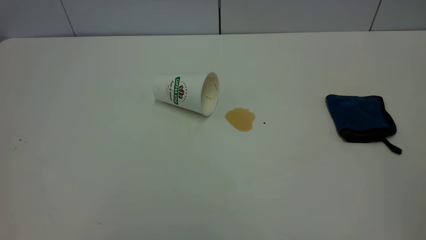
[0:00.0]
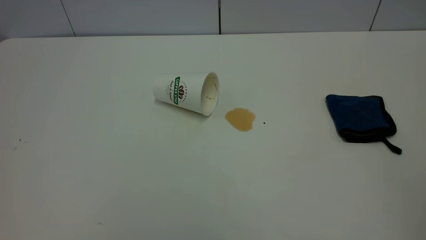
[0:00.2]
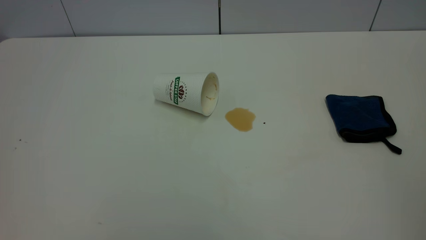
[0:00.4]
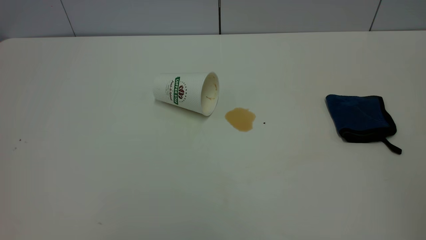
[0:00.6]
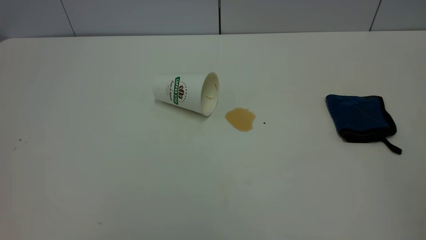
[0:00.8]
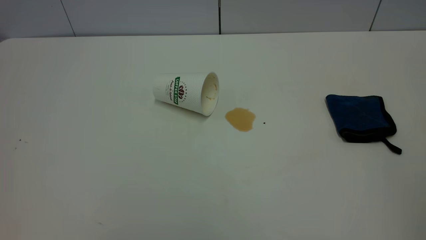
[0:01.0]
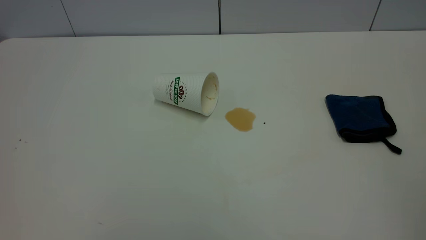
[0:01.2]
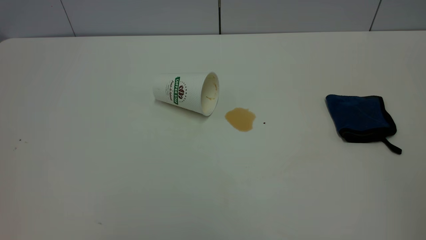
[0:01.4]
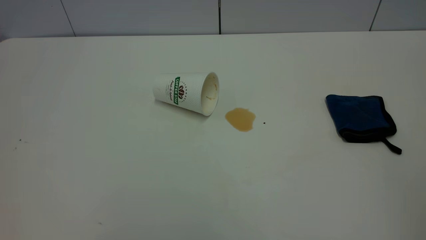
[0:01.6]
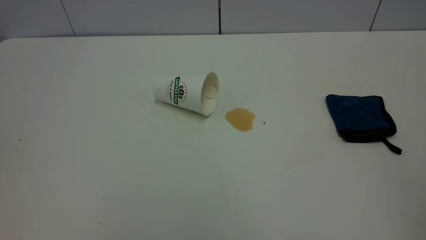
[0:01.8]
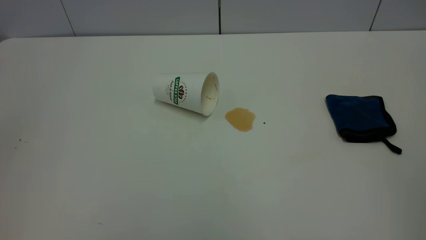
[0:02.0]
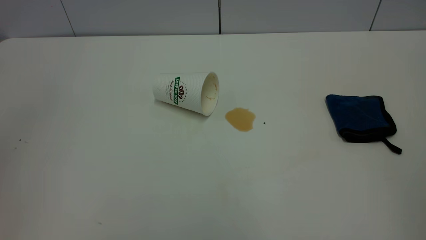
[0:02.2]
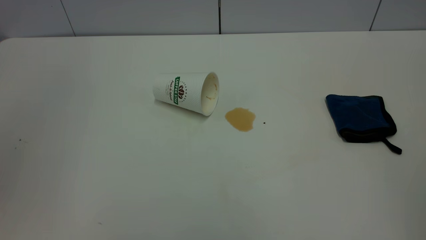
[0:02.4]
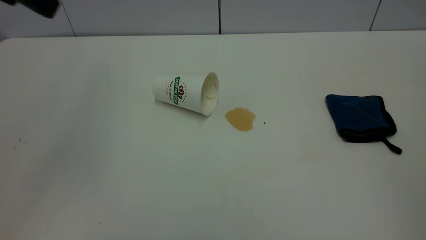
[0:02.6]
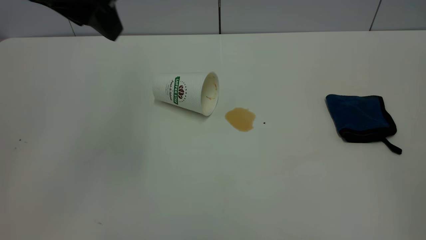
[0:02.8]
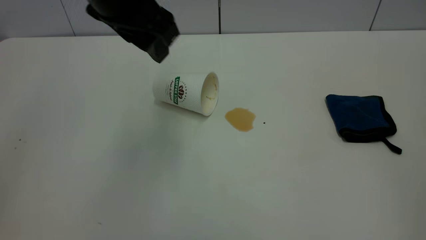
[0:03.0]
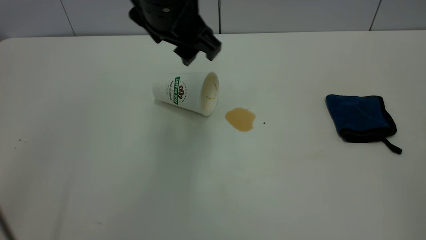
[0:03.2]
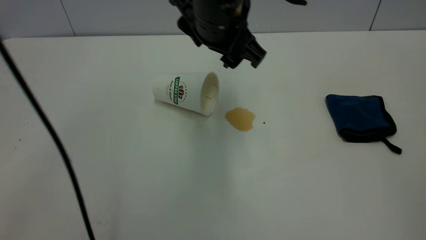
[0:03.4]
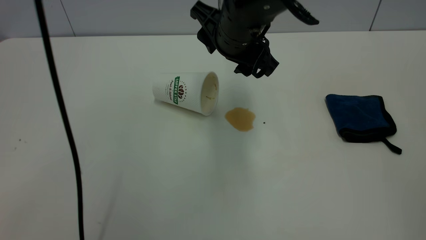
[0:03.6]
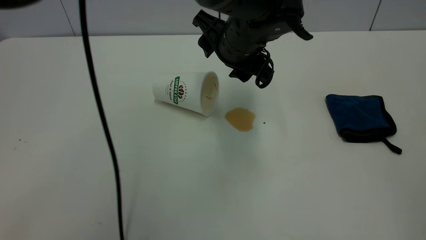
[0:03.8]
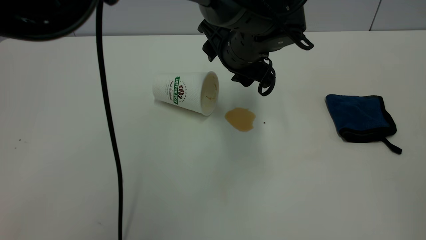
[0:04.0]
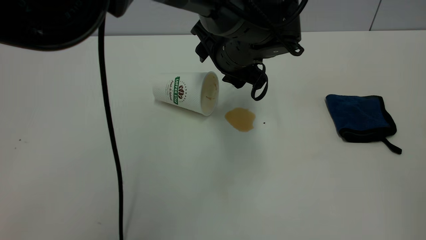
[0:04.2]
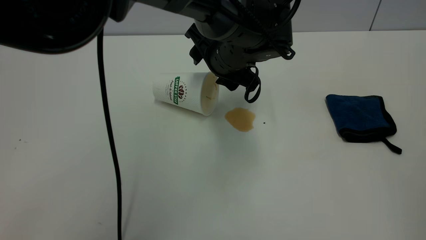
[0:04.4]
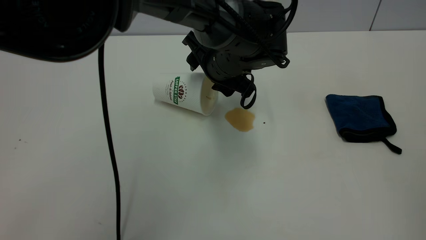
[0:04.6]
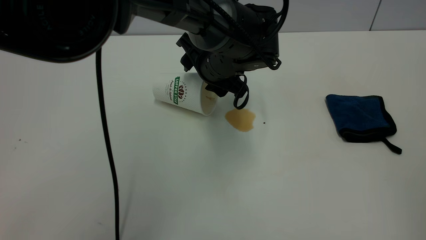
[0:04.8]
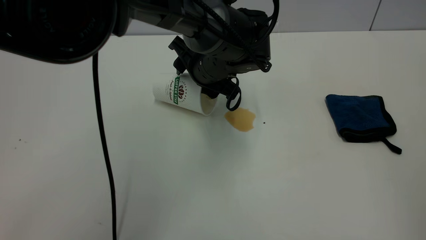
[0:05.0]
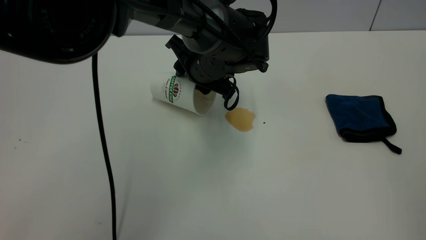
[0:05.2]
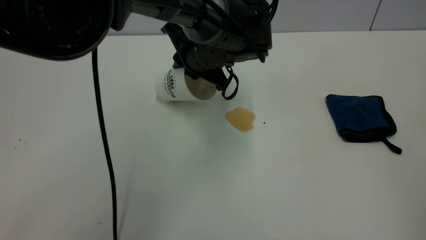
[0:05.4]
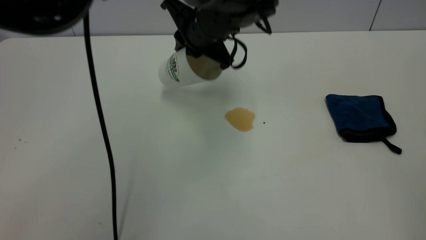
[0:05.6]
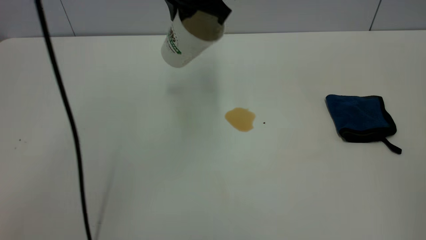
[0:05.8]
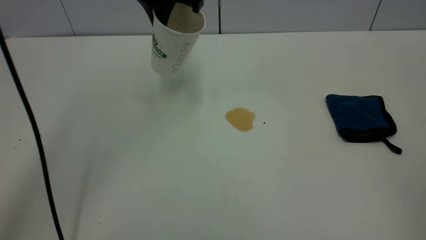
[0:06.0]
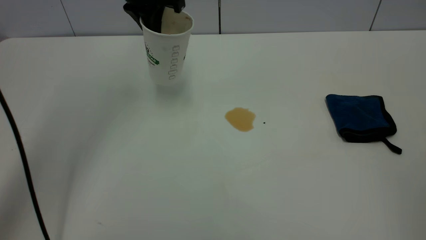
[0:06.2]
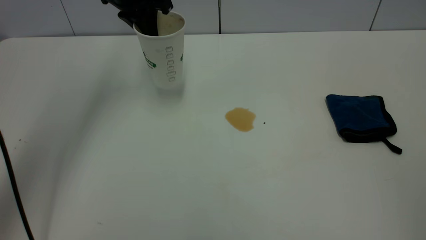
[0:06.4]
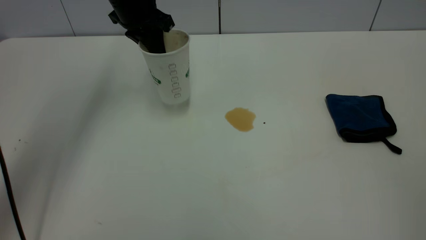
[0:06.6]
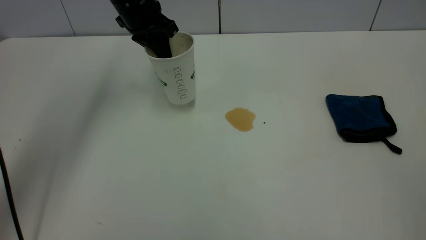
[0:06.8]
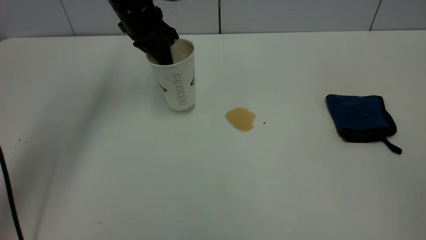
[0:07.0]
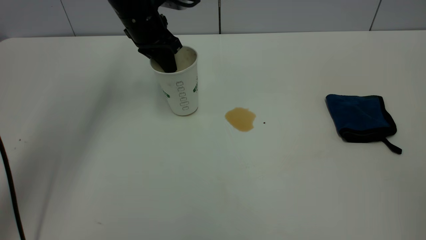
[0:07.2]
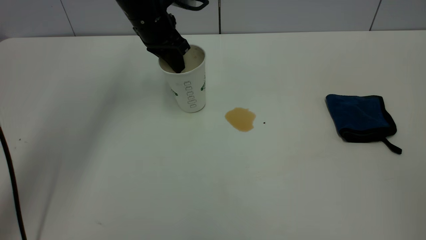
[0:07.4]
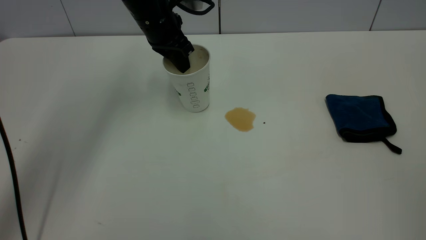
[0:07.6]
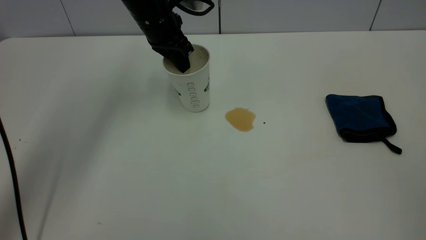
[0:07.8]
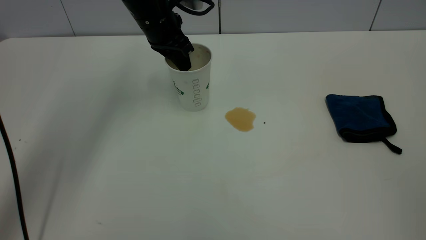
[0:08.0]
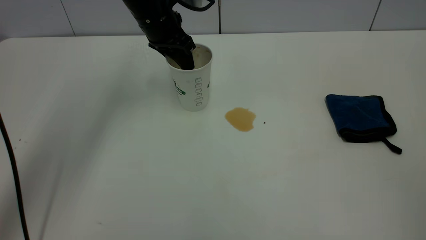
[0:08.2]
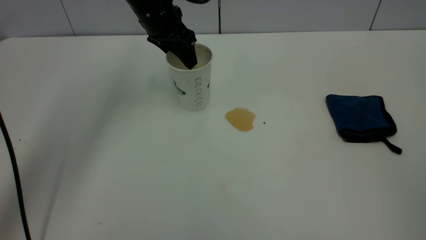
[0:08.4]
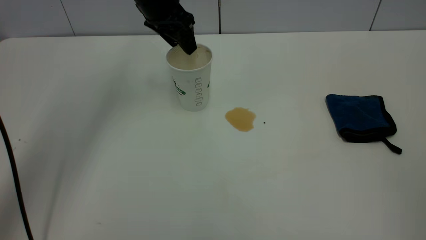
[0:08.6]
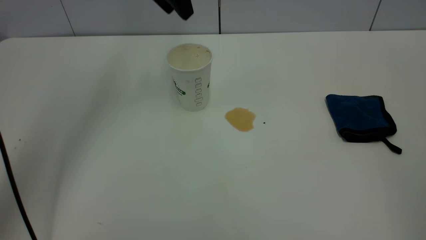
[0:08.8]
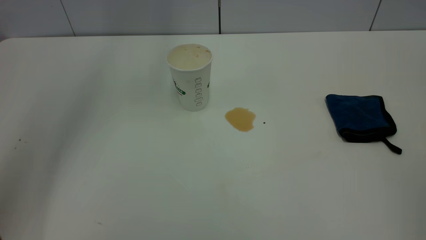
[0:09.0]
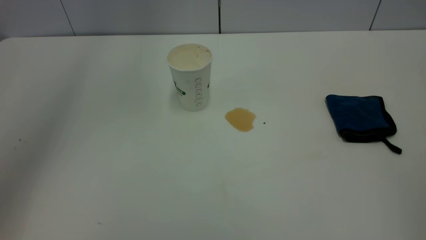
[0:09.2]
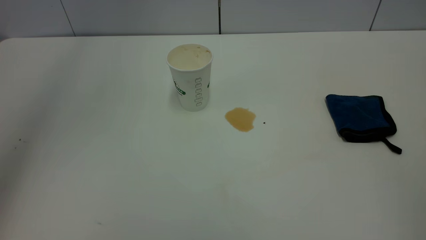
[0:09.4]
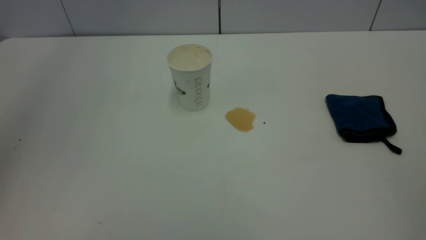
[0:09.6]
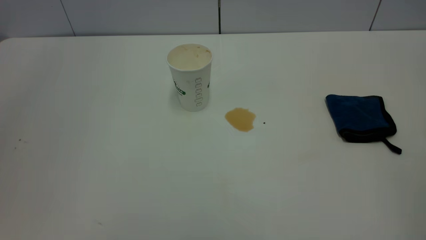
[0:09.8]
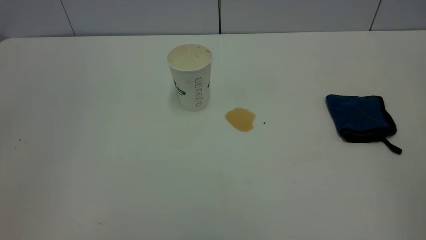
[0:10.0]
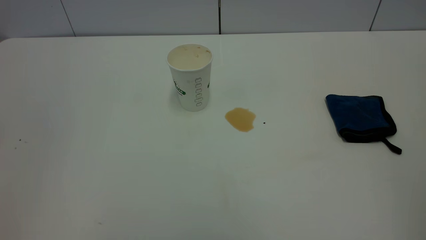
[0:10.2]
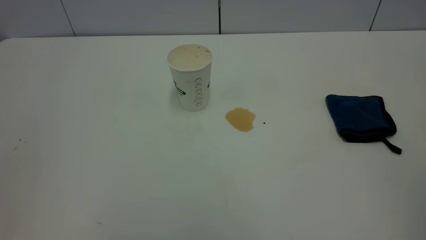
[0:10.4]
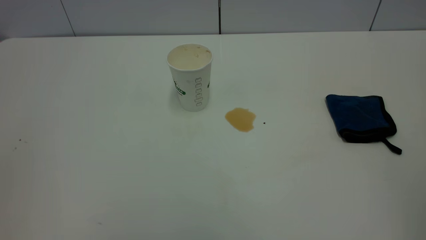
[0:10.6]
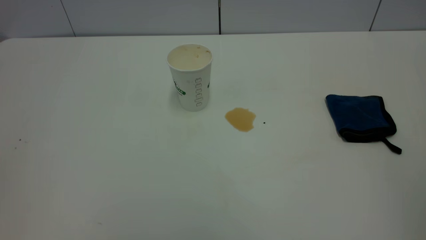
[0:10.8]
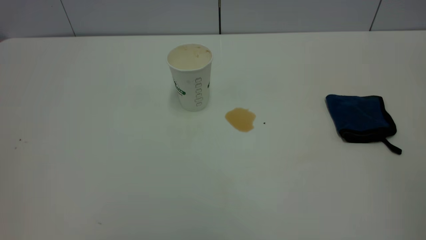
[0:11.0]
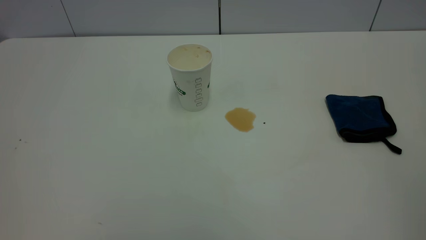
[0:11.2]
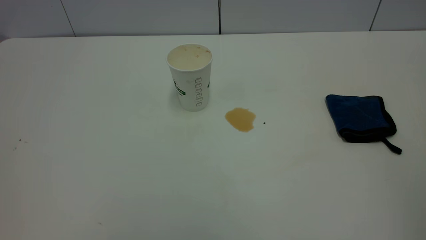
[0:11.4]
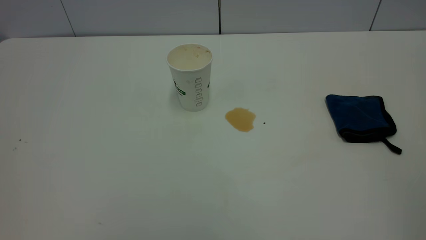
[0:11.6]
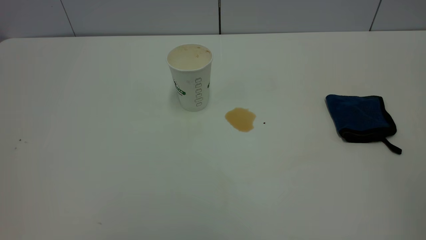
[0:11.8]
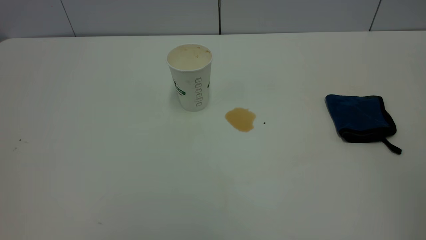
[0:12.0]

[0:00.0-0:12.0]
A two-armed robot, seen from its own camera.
Task of the whole recording: the left gripper pick up the fallen cup and place it upright, the right gripper grasp the blue rag and wipe the tea stain on the table, the right gripper put the blue rag back in its original position.
Step, 0:00.0 to 0:08.6: Stand the paper cup upright.
0:00.0 to 0:01.6: Both grippers stay about where they are.
0:01.6 to 0:03.0: The left gripper heads forward and to the right, covering about 40 cm.
0:03.0 to 0:04.4: The left gripper is displaced downward, to the right and forward by some 20 cm.
0:04.4 to 0:06.0: The left gripper moves upward, to the left and forward, approximately 20 cm, and closes.
0:06.0 to 0:07.6: The left gripper heads downward, covering about 10 cm.
0:07.6 to 0:09.0: The left gripper moves upward, about 25 cm, and opens its fingers.

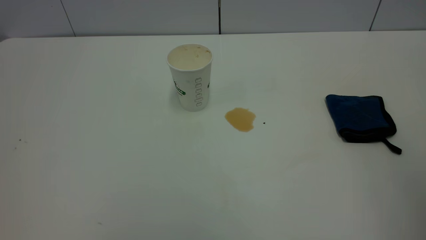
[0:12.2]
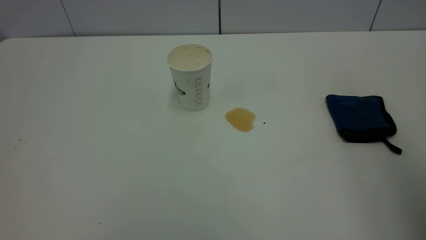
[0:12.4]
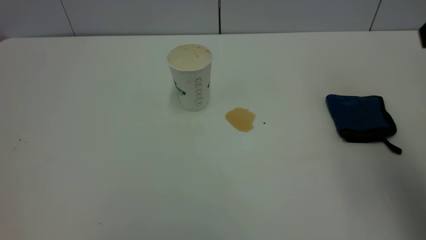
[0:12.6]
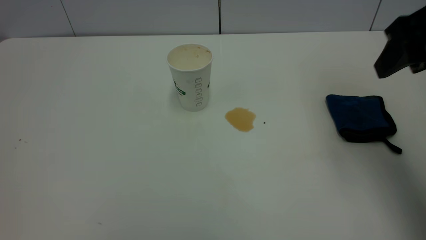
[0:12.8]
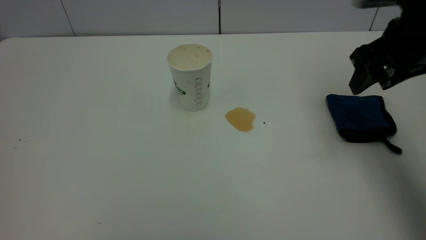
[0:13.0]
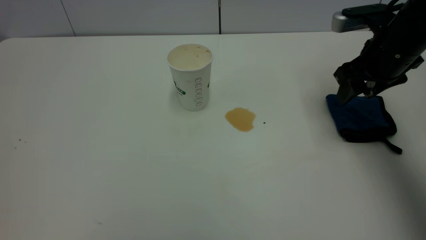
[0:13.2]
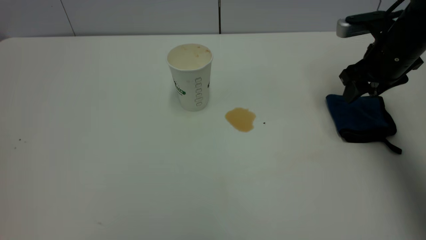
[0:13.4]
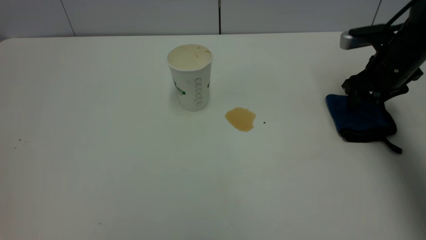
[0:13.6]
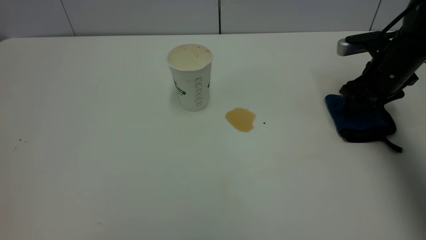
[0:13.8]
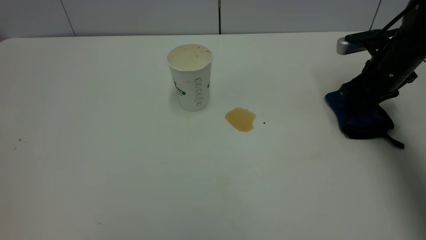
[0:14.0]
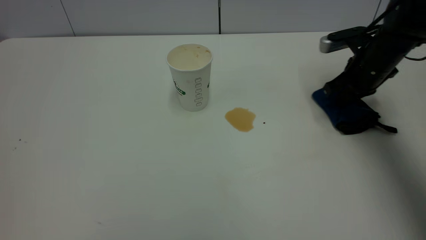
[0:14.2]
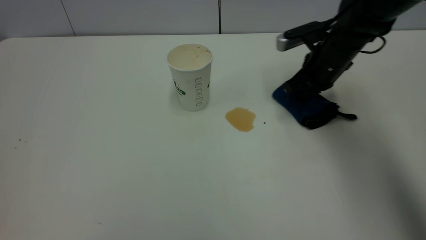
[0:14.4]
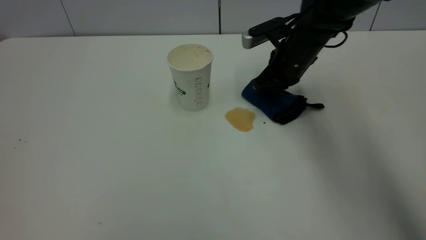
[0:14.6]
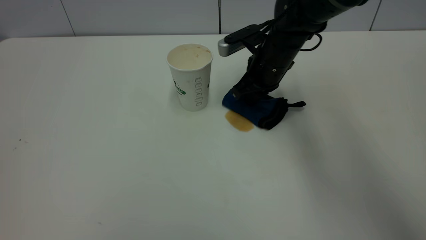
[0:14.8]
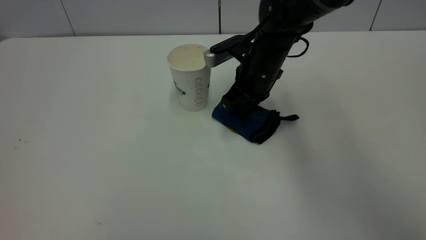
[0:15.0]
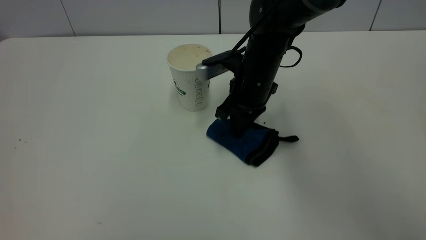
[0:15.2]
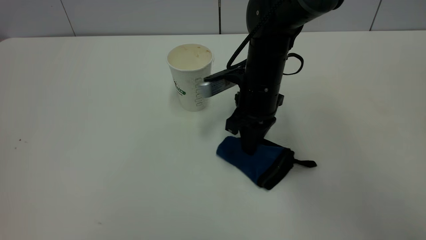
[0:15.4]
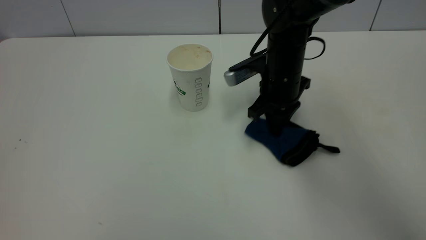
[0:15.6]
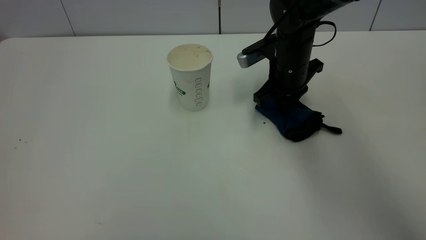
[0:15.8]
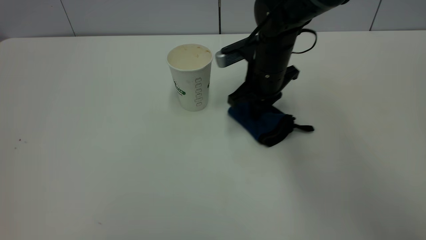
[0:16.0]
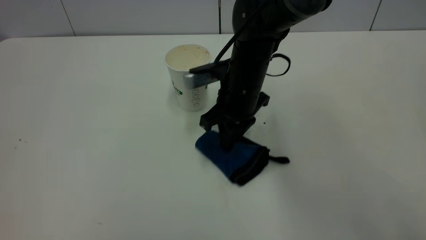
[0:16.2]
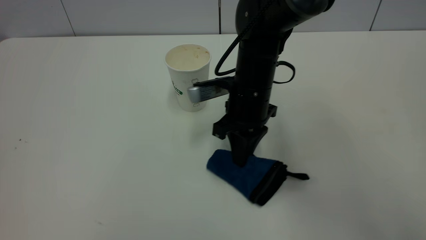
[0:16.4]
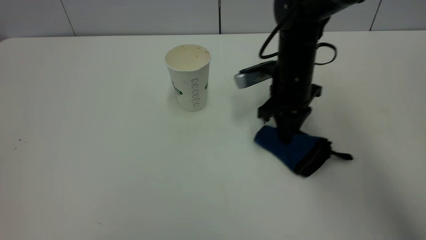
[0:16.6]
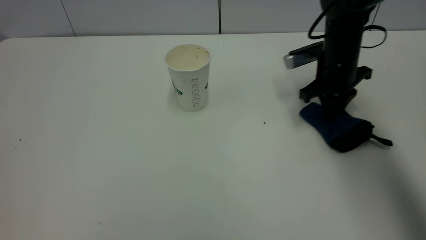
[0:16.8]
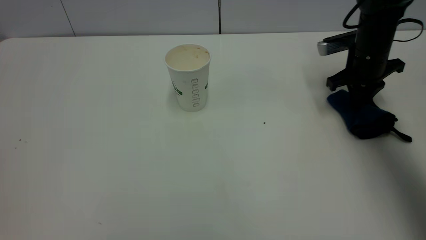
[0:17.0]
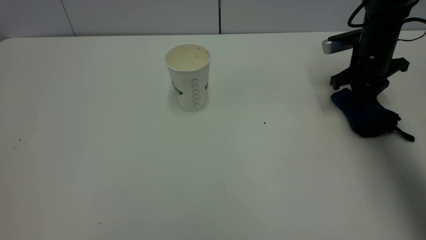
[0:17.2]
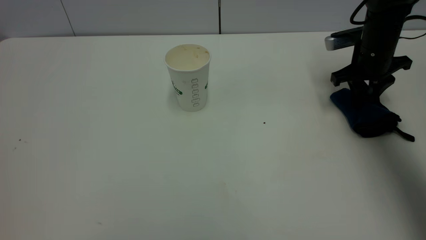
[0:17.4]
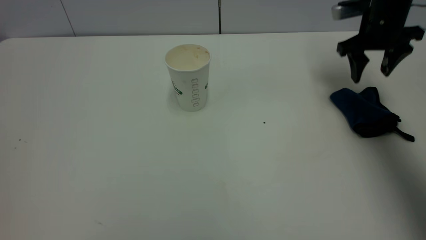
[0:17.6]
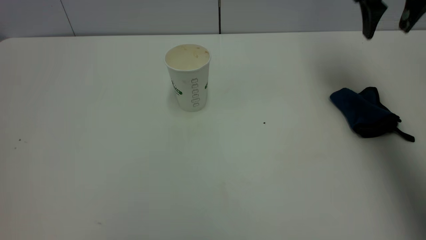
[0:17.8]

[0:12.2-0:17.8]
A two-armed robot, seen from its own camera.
Task of the whole recording: the left gripper pick up the fallen cup and place it upright, the right gripper grasp the blue rag and wipe the tea stain on the table, the right gripper put the blue rag back in its original position.
Step, 0:12.2 to 0:17.6: Wipe the stains off the table with a rag.
0:12.2 to 0:13.6: The right gripper moves forward and downward, roughly 40 cm.
0:13.6 to 0:15.0: The right gripper heads to the left, covering roughly 20 cm, and closes up.
0:15.0 to 0:16.4: The right gripper goes to the right and returns, roughly 5 cm each way.
0:16.4 to 0:17.8: The right gripper moves to the right and upward, some 30 cm, and opens its fingers.
